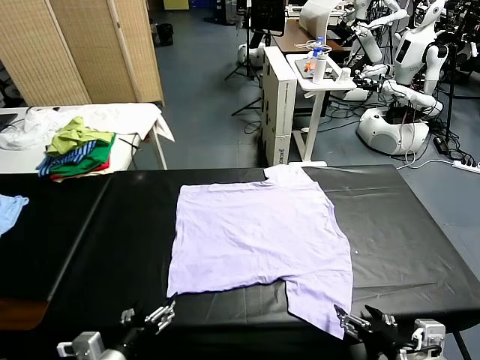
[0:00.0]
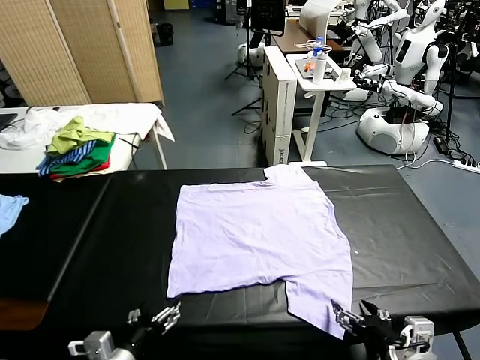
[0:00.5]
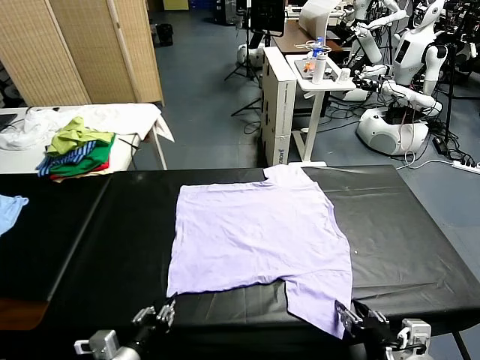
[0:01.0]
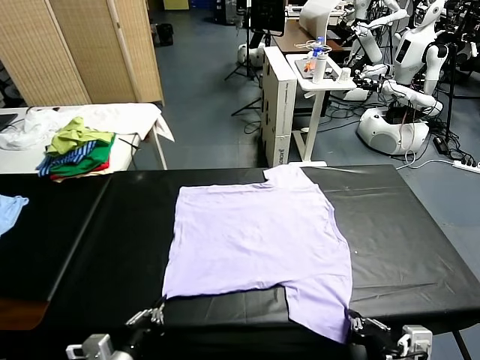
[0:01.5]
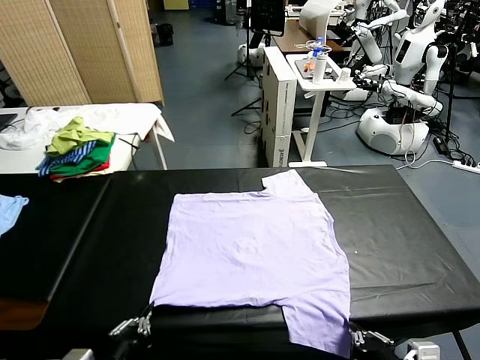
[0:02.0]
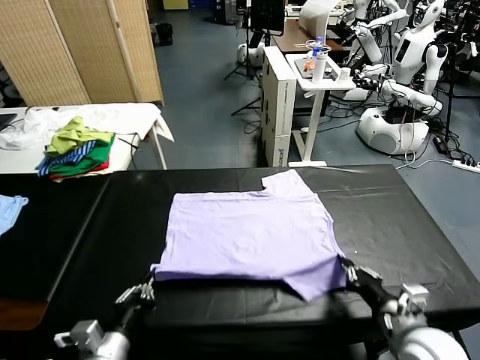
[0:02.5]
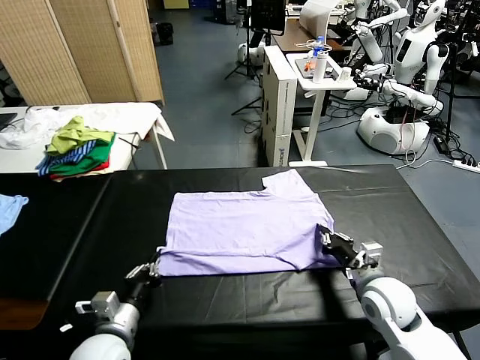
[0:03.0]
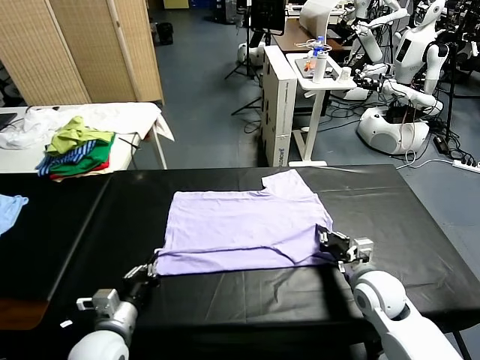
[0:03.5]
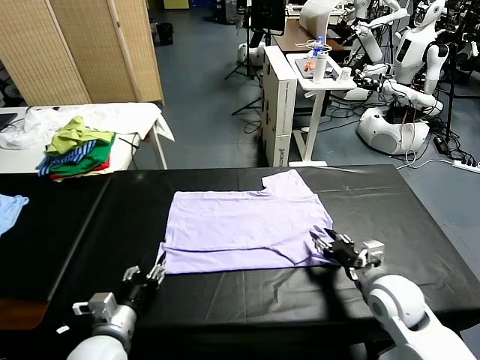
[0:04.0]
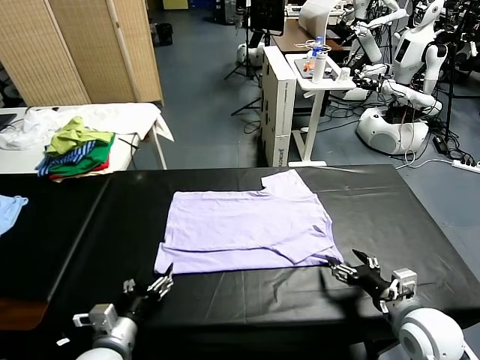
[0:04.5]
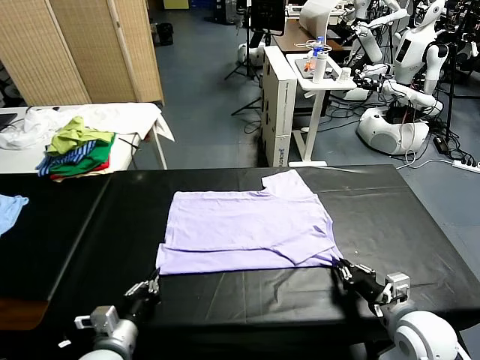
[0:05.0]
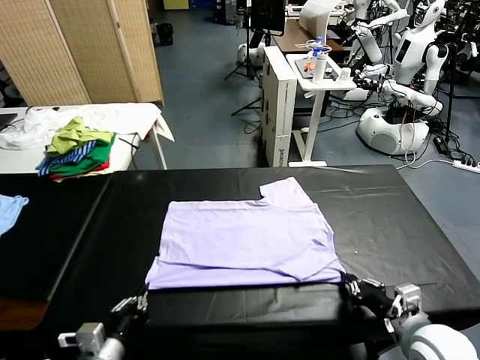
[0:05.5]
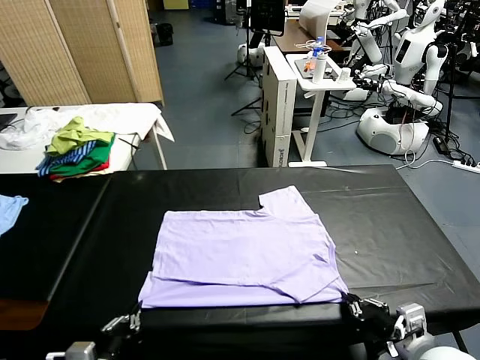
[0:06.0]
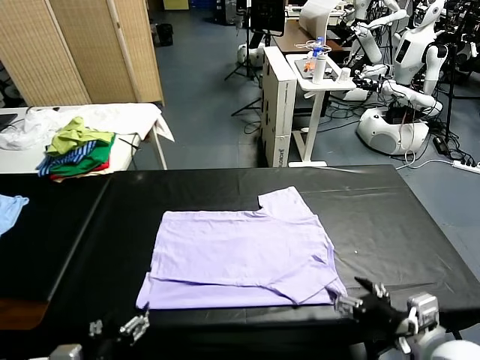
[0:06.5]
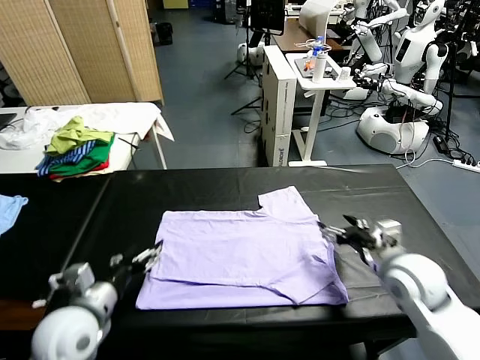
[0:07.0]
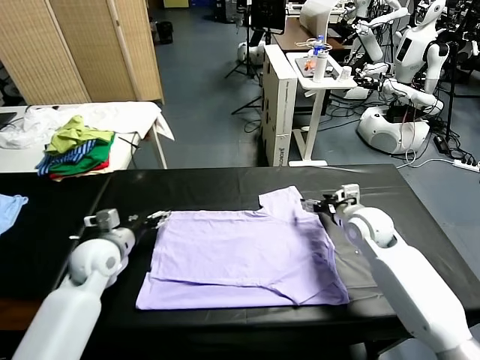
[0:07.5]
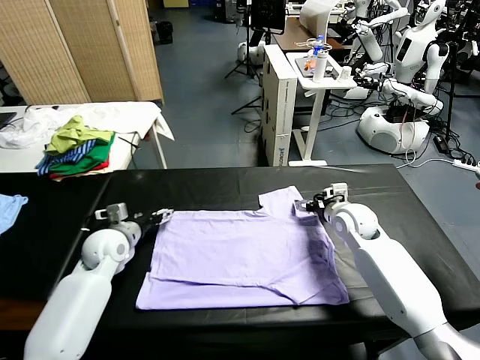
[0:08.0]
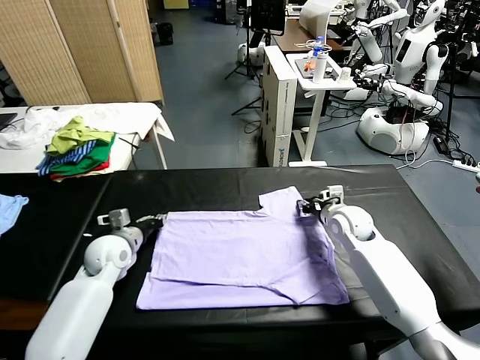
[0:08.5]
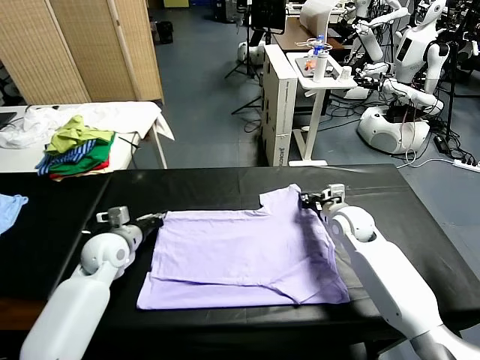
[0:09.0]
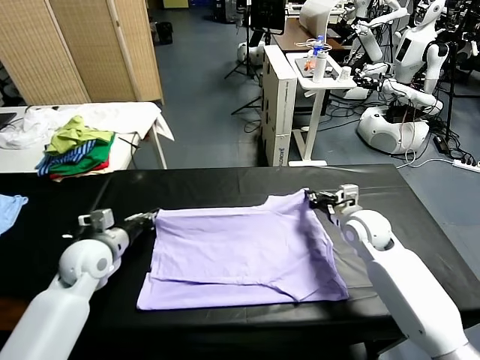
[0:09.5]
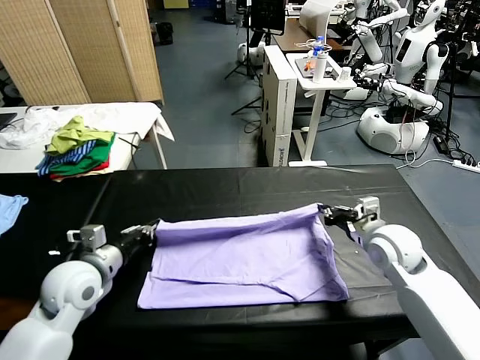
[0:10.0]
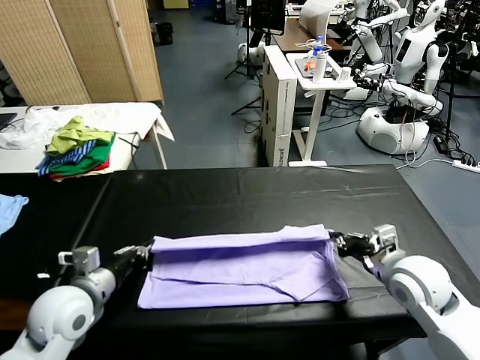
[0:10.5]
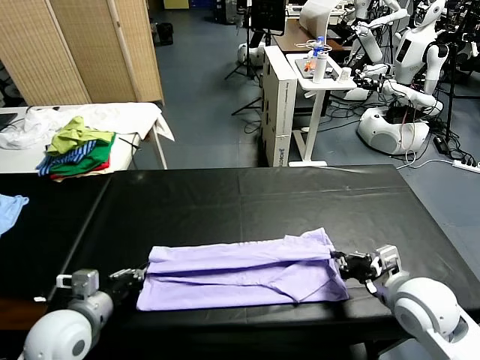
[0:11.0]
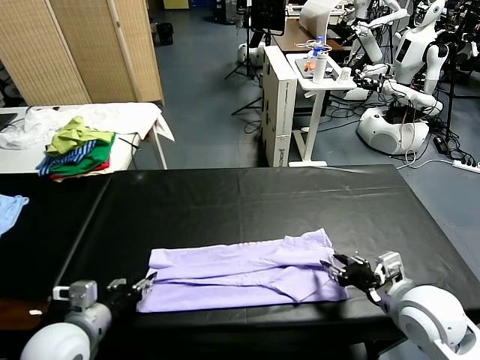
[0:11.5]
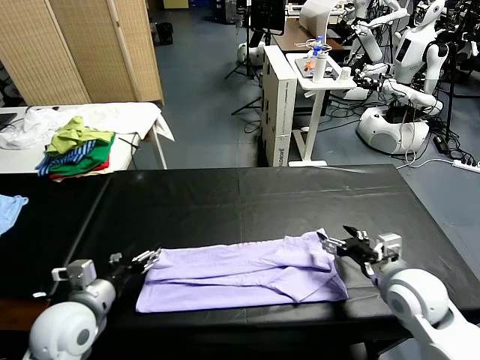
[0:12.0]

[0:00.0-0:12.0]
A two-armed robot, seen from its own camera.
Task of the whole recording: fold and organize the clothes.
Step, 0:00.0 to 0:01.5: use both grippers simultaneously to clamp the lower edge of the clothing fabric.
Step, 0:02.0 to 0:04.0: use both grippers to drag the lower edge of the fabric forward and fold it over the upper edge.
Step, 0:04.5 to 0:06.0: Drag the clothes downward with both gripper.
Step, 0:06.5 to 0:08.5: use both grippers simultaneously to clamp the upper edge of the clothing fabric.
Step, 0:09.0 to 0:11.5: use both grippers to drag the upper edge of the fabric backward and fold it over the lower edge.
0:02.0 to 0:04.0: The grippers both shift forward by approximately 10 cm. The left gripper opens up; the right gripper opens.
0:04.0 to 0:06.0: Both grippers move backward, some 10 cm. The right gripper closes, then opens again. The left gripper closes its fingers.
0:06.0 to 0:08.0: Both grippers travel together forward, about 30 cm. The left gripper opens its fingers.
0:08.0 to 0:10.0: Both grippers move backward and upward, about 15 cm. The right gripper closes. The left gripper closes.
0:10.0 to 0:12.0: The right gripper goes roughly 5 cm downward, travels backward and back again, approximately 10 cm each way, and opens its fingers. The left gripper opens its fingers.

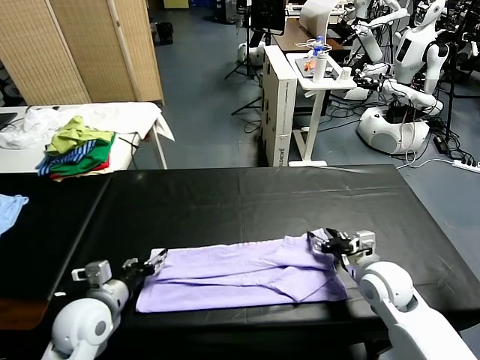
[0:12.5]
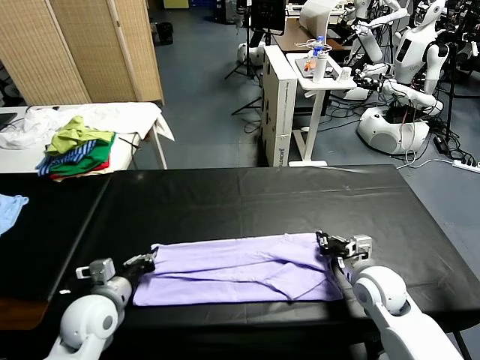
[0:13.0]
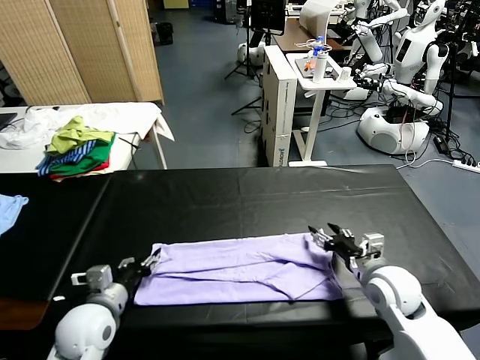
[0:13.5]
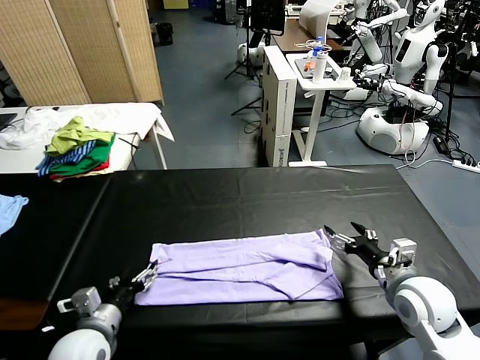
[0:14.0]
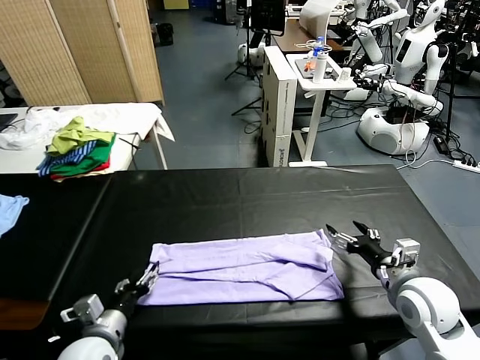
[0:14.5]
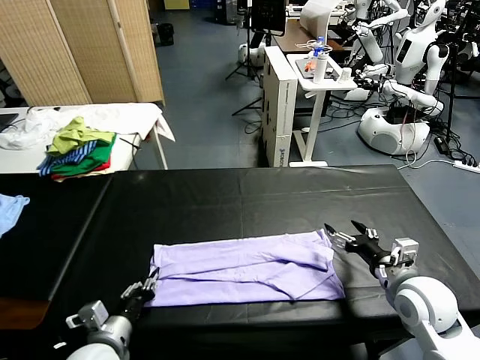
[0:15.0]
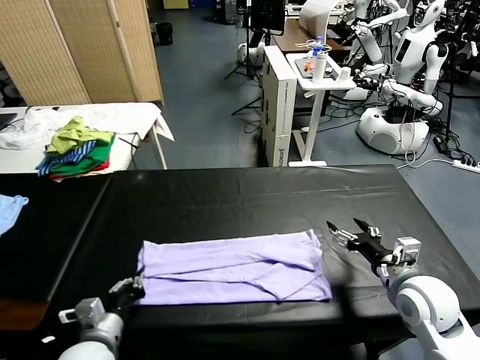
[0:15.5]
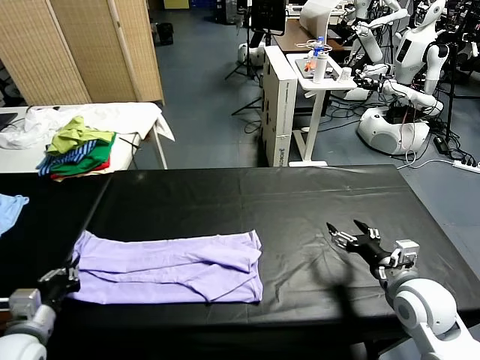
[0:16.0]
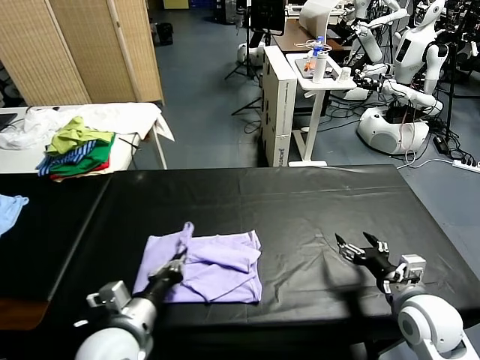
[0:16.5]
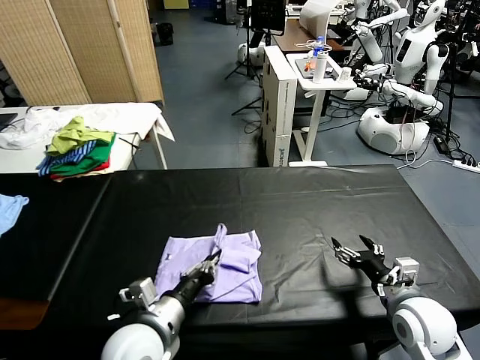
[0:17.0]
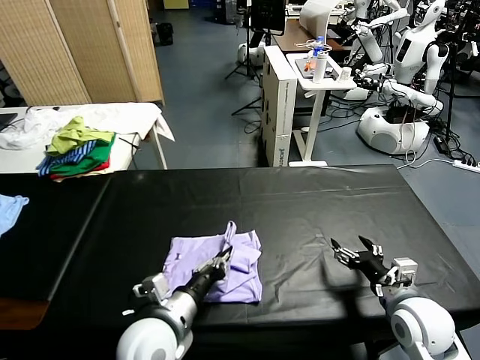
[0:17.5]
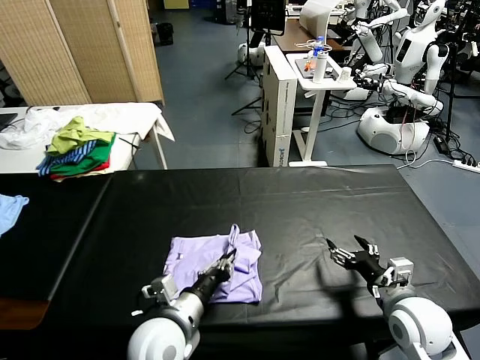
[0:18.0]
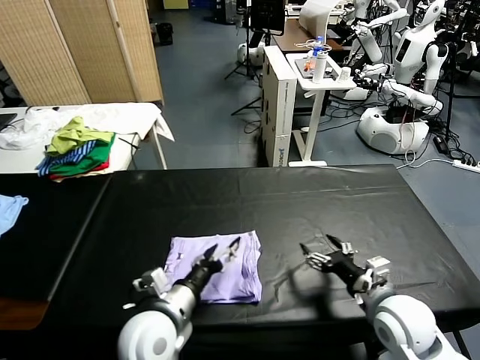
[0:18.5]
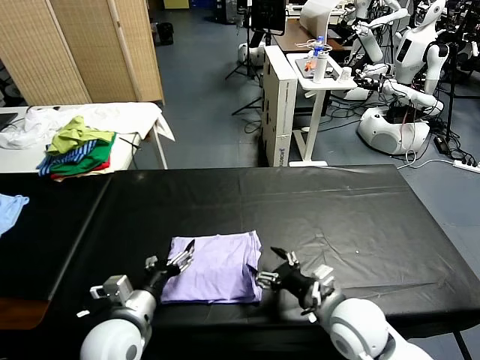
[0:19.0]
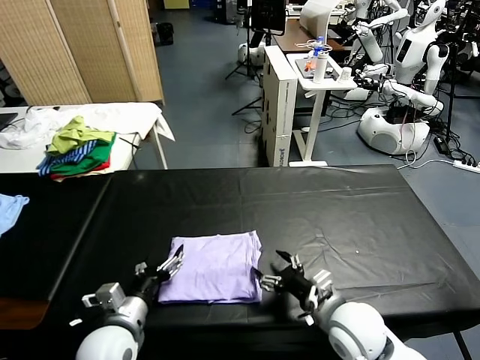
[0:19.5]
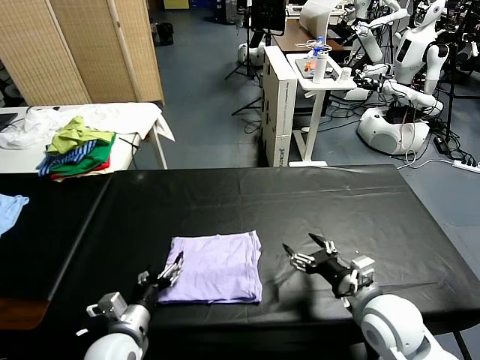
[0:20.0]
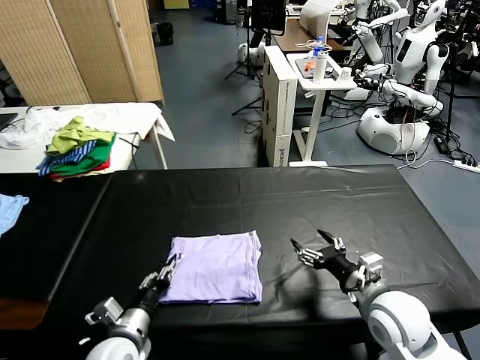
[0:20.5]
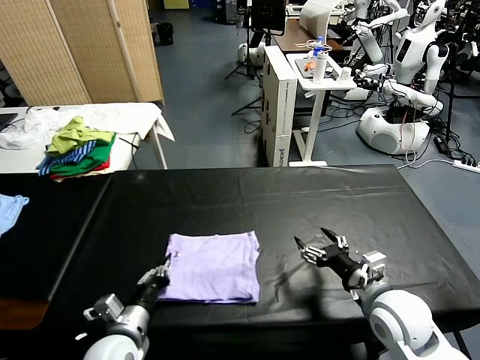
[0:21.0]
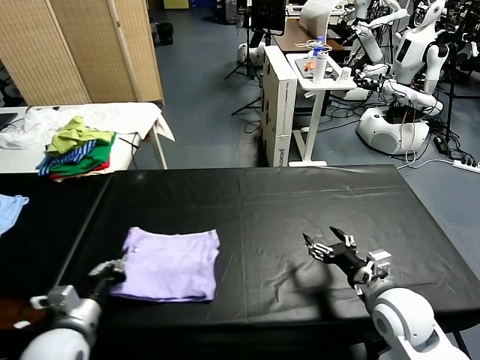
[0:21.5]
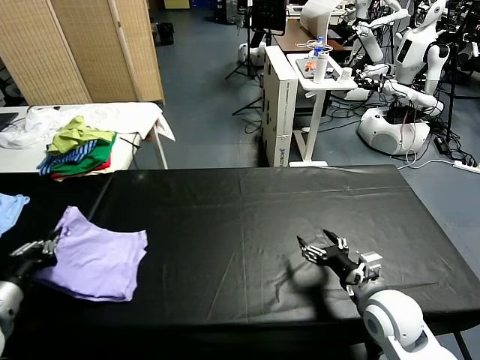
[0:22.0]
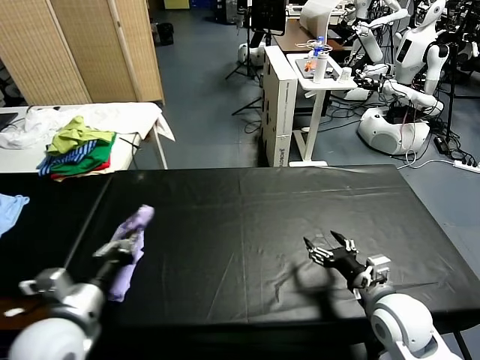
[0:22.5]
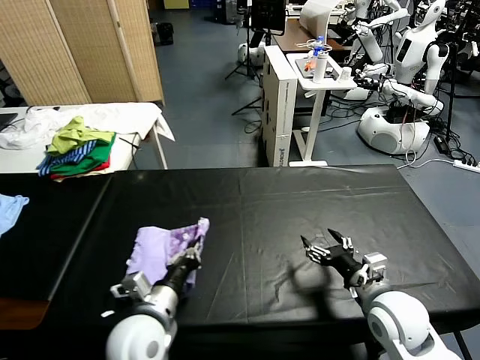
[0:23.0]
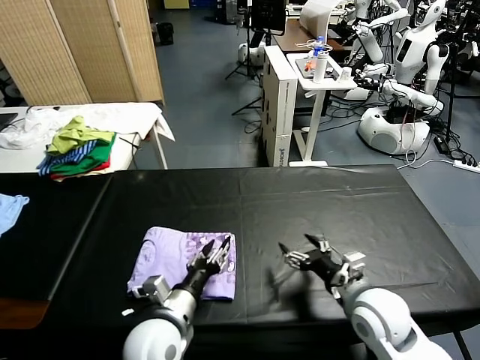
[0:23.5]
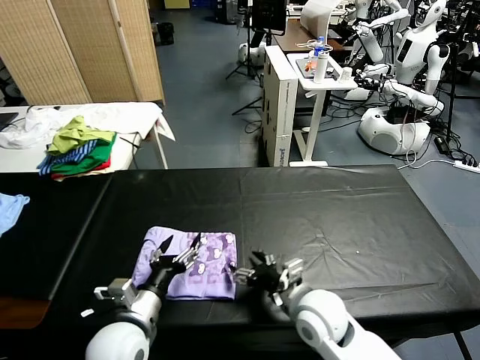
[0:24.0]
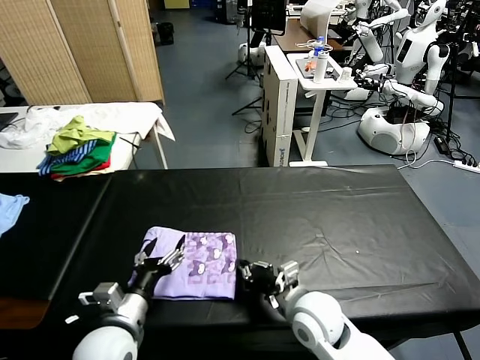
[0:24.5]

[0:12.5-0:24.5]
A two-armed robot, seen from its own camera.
Task of the whole recording: fold and organize the clothes.
Step, 0:12.5 to 0:15.0: use the left gripper to clamp the left edge of the fabric.
Step, 0:15.5 to 0:18.5: use the left gripper to drag the left edge of the fabric to the left and folds it over the right edge.
Step, 0:19.0 to 0:23.5: Flip the folded clothes over with left gripper.
0:12.5 to 0:14.5: The left gripper travels backward by about 5 cm, and closes, then opens again, while the right gripper heads backward and upward, covering about 10 cm, and opens its fingers.
0:14.5 to 0:16.5: The left gripper heads upward, covering approximately 5 cm, moves about 10 cm to the left and comes back, and closes.
0:16.5 to 0:18.5: The left gripper goes approximately 10 cm to the right, and opens its fingers.
0:18.5 to 0:20.5: The right gripper goes to the left and returns, approximately 10 cm each way, while the left gripper travels to the left and downward by roughly 10 cm.
0:20.5 to 0:22.5: The left gripper is displaced upward and to the left by about 15 cm, and closes its fingers.
0:22.5 to 0:24.5: The right gripper shifts some 15 cm to the left, and closes. Meanwhile the left gripper is displaced downward and to the right by some 15 cm, and opens up.

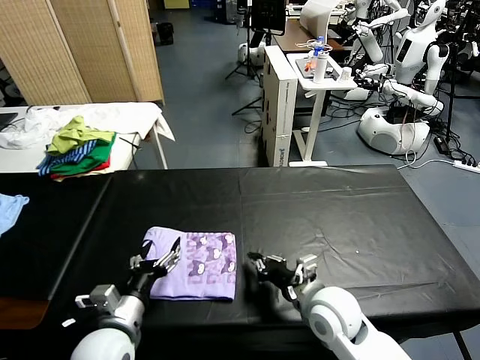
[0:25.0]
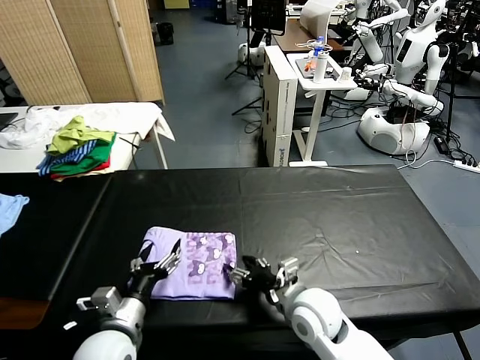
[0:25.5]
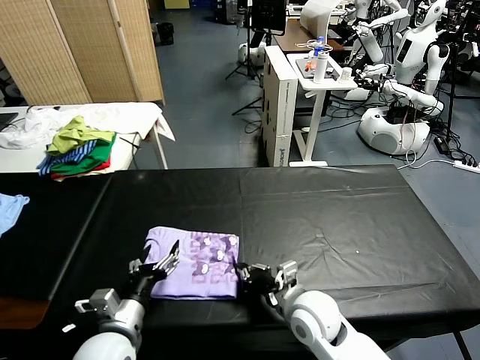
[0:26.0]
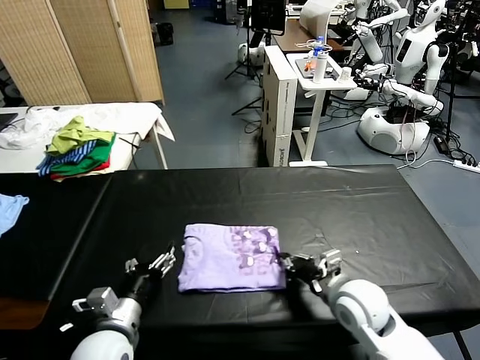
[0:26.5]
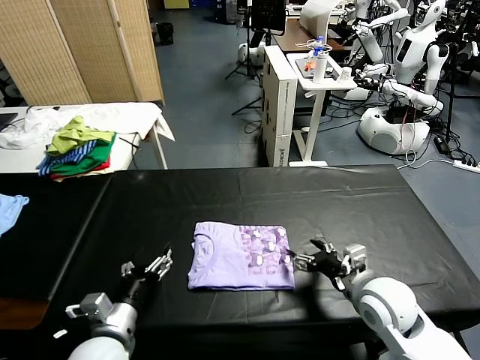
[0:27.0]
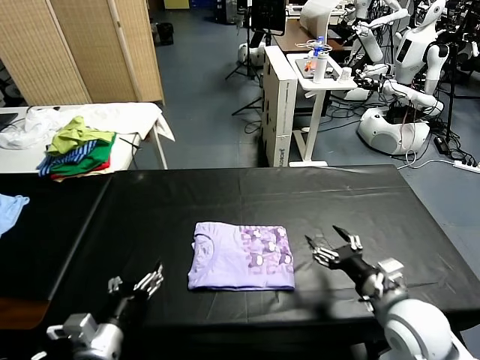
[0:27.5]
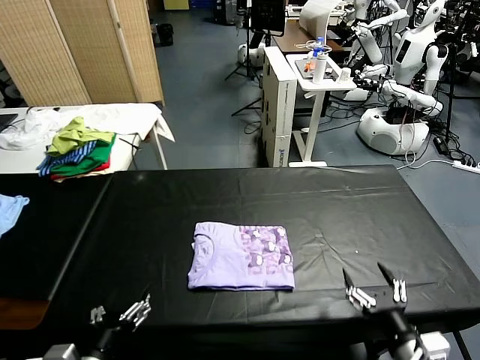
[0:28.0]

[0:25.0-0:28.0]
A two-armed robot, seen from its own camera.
Task of the whole recording: fold and organize the clothes.
Step, 0:25.0 to 0:27.0: Drag the clothes to the center of the table.
0:25.0 to 0:26.5: The right gripper opens, then closes once more.
0:26.5 to 0:28.0: The right gripper is displaced backward and to the right by some 20 cm, and opens its fingers; the left gripper travels backward by some 10 cm.
